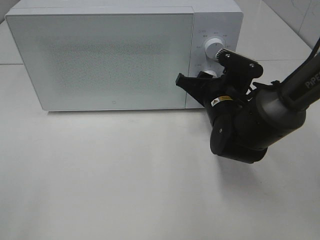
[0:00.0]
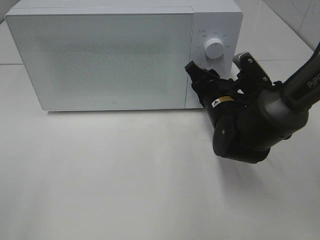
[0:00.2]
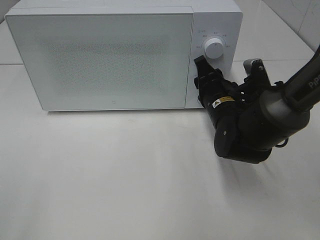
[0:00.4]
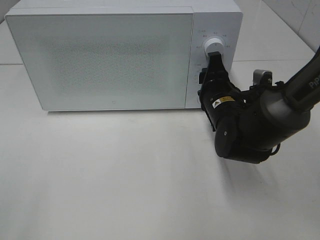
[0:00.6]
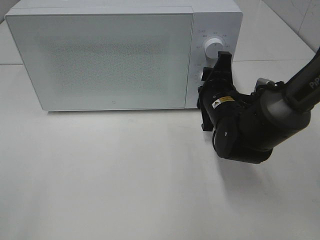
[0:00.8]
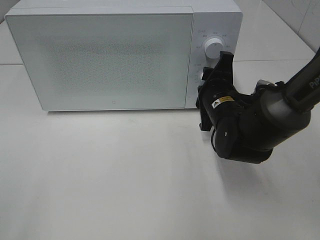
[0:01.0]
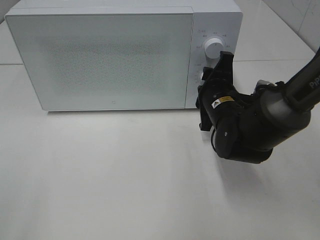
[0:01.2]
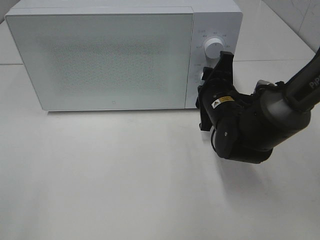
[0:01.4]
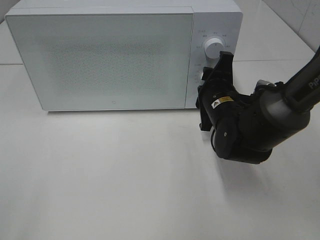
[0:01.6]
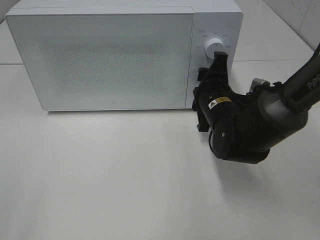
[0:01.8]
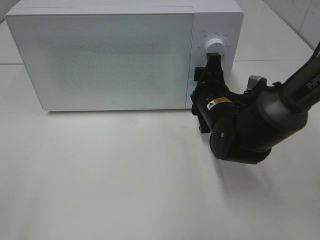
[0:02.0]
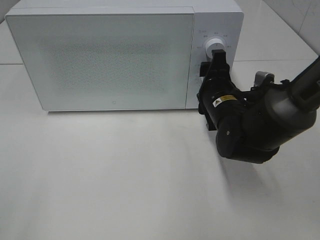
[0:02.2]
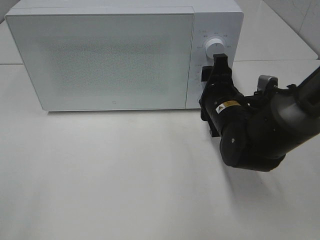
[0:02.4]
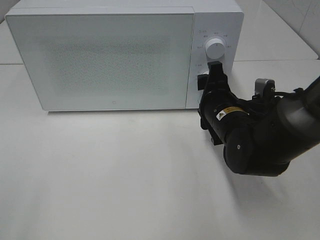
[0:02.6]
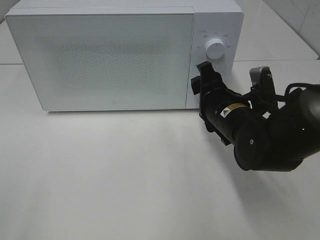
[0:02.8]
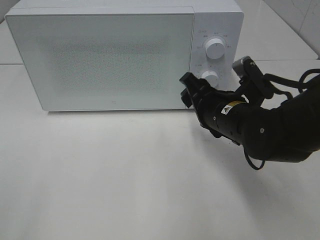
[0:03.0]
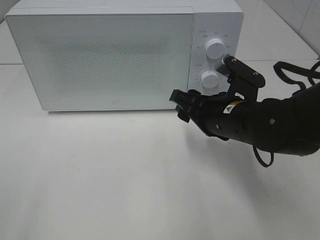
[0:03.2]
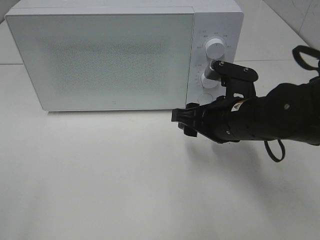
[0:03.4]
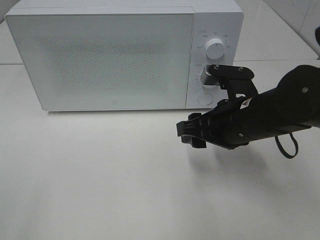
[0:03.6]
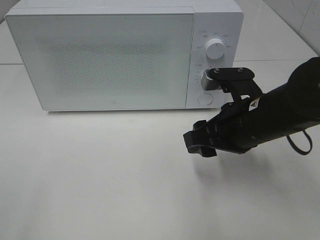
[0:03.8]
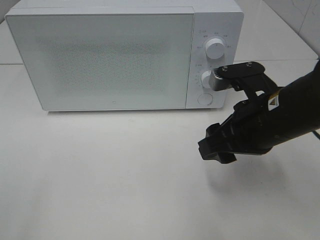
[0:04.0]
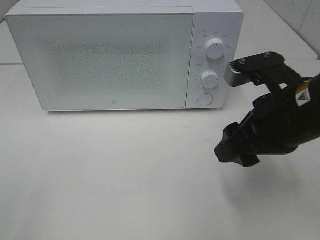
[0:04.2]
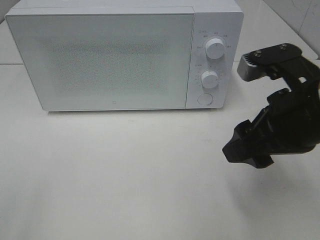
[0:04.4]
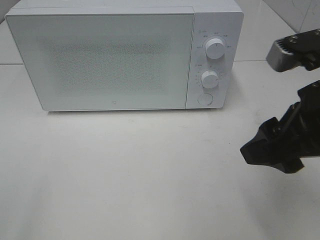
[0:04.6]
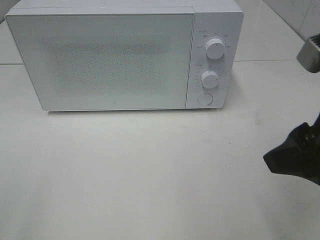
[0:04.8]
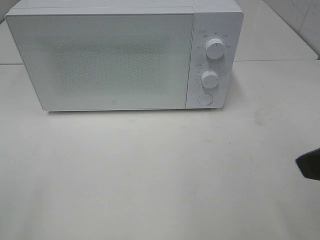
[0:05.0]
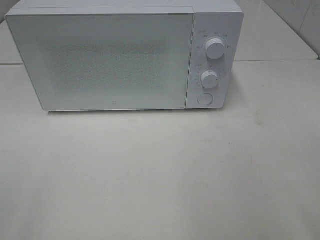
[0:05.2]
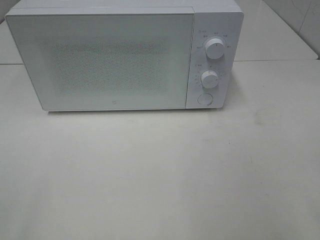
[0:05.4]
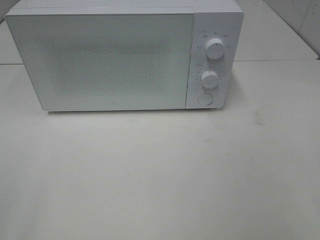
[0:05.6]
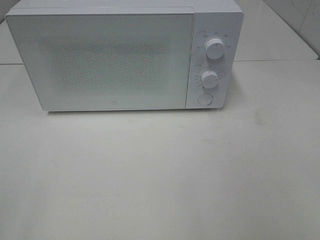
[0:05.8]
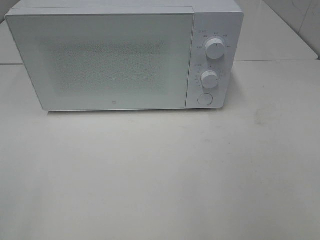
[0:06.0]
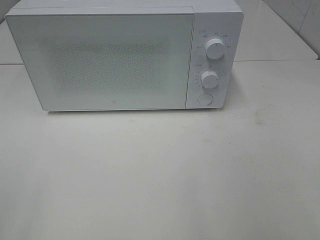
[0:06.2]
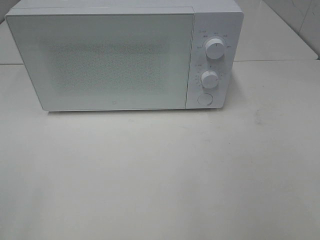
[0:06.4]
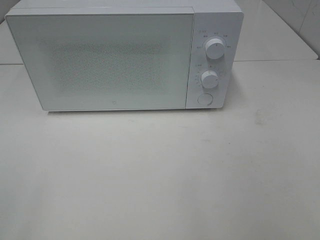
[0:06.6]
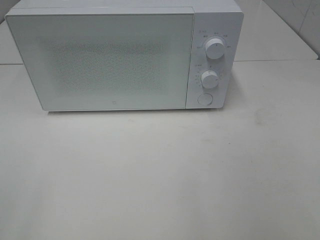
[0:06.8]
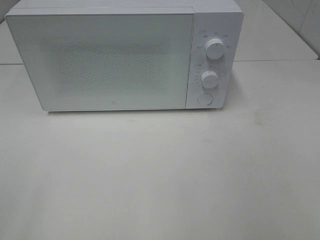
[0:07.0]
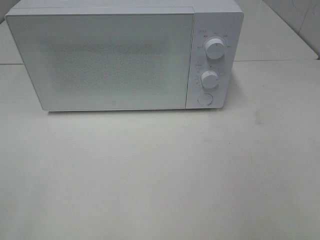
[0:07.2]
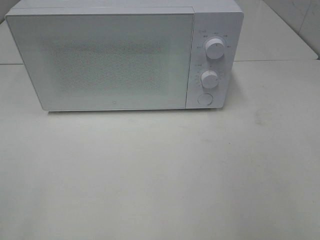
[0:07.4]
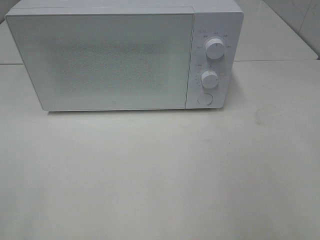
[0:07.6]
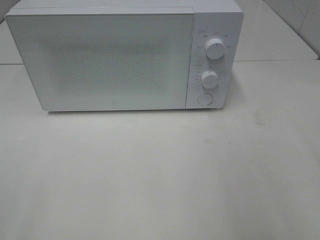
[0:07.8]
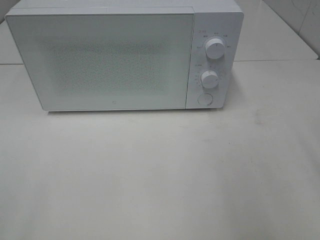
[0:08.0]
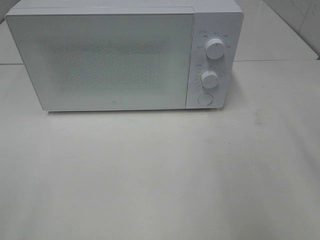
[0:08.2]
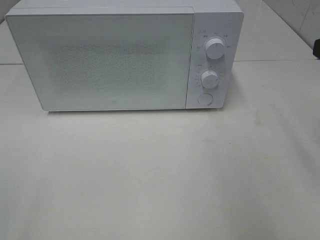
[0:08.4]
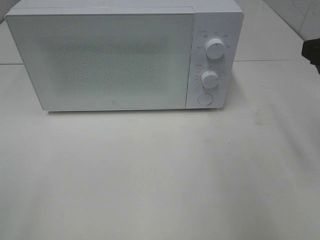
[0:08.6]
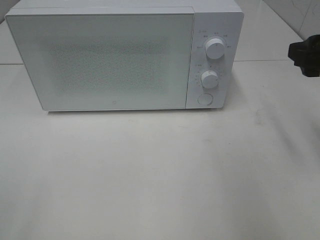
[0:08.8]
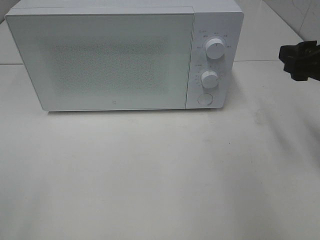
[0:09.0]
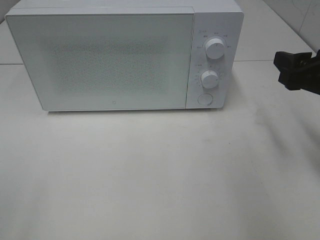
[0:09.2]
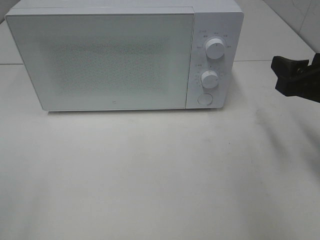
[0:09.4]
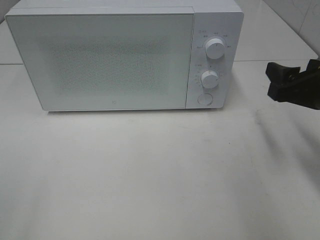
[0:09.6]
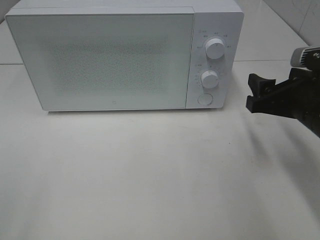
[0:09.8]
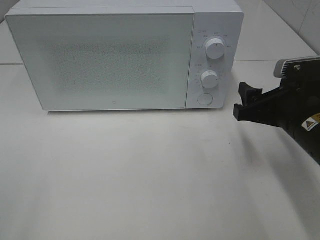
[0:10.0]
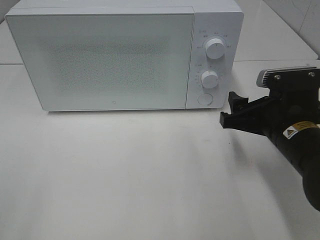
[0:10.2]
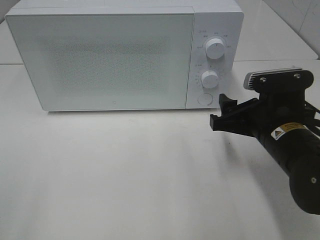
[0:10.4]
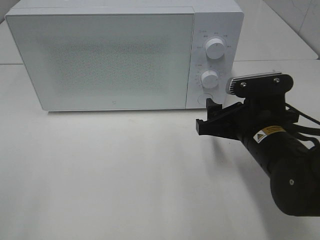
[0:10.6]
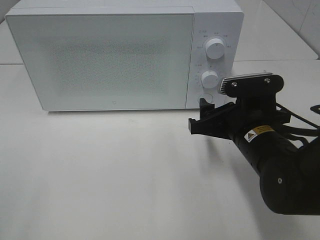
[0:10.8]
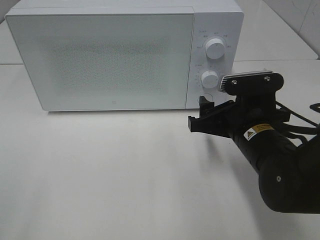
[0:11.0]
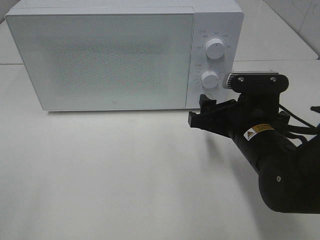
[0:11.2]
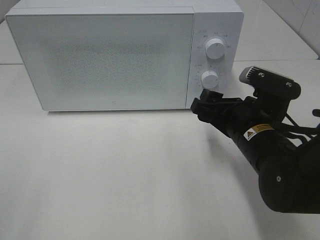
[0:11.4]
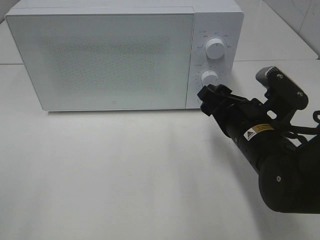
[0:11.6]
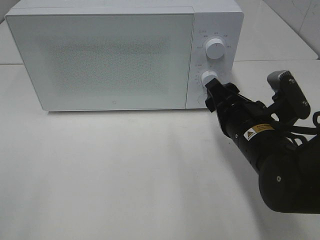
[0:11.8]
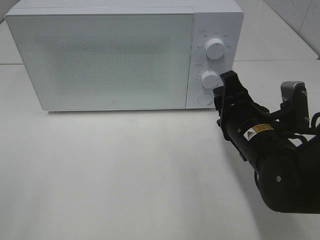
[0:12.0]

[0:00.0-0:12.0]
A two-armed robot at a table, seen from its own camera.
Task of the whole recording: Heat the burger.
0:01.6 to 0:03.0: The right gripper moves backward, roughly 5 cm.
0:03.0 to 0:04.4: The right gripper is displaced upward, backward and to the right by roughly 15 cm.
0:04.4 to 0:06.0: The right gripper is displaced backward and to the right by some 20 cm.
0:07.6 to 0:09.0: The right gripper goes some 15 cm forward and downward.
0:09.0 to 0:10.4: The right gripper goes roughly 15 cm downward and to the left.
0:10.4 to 0:12.0: The right gripper closes up.

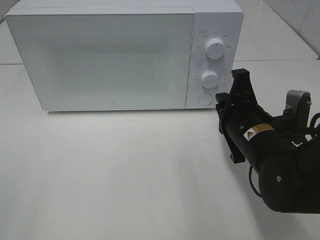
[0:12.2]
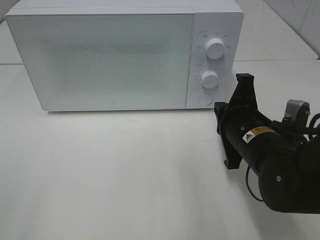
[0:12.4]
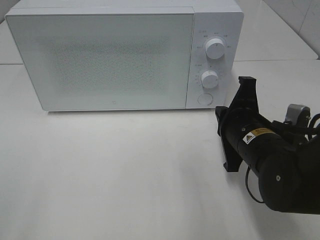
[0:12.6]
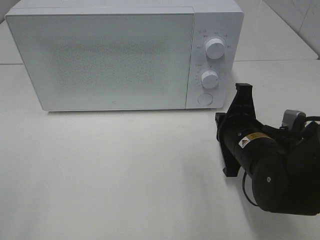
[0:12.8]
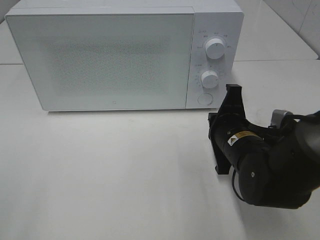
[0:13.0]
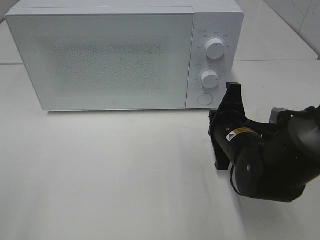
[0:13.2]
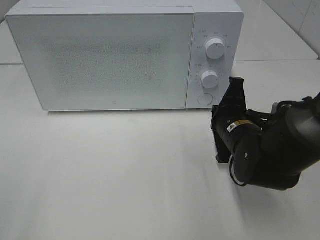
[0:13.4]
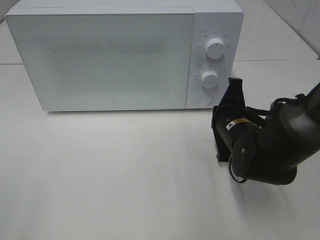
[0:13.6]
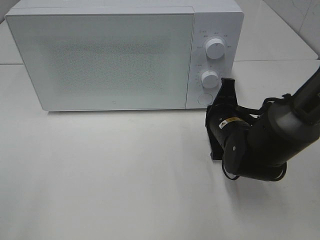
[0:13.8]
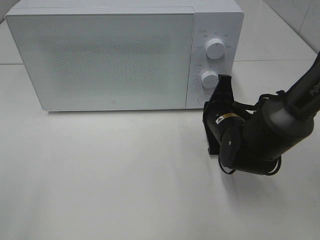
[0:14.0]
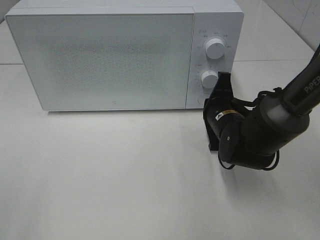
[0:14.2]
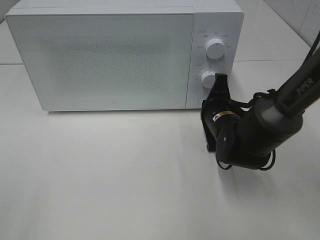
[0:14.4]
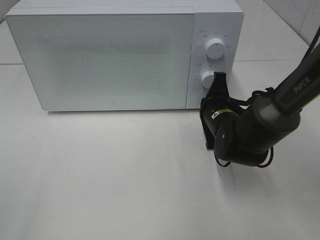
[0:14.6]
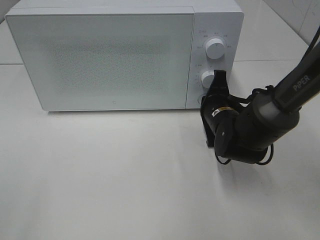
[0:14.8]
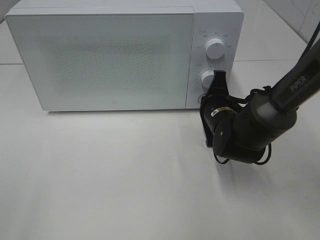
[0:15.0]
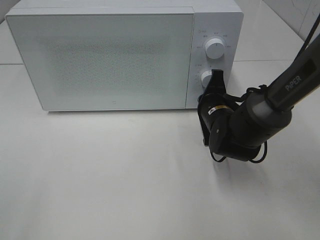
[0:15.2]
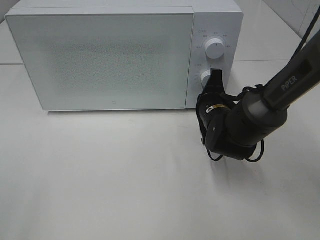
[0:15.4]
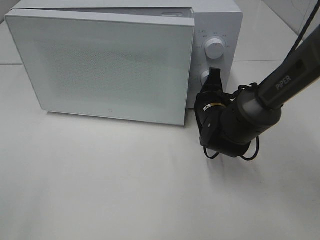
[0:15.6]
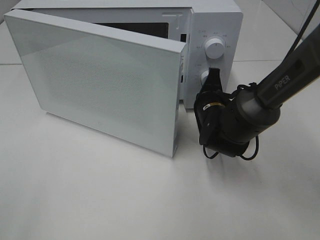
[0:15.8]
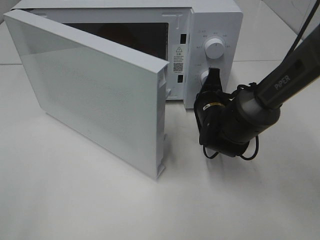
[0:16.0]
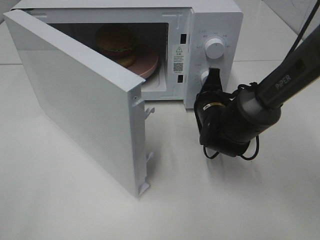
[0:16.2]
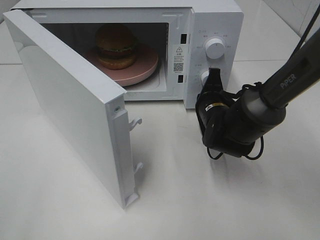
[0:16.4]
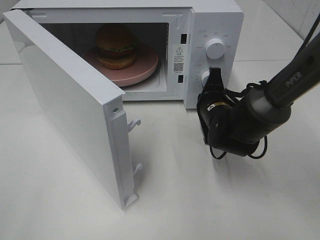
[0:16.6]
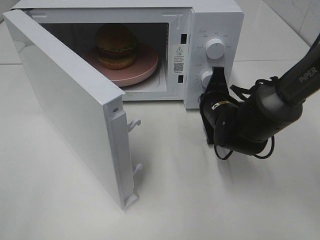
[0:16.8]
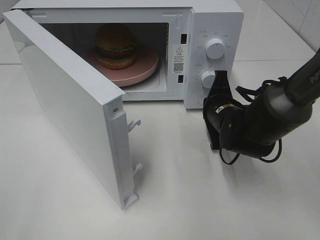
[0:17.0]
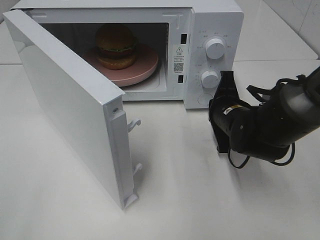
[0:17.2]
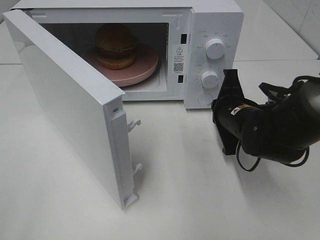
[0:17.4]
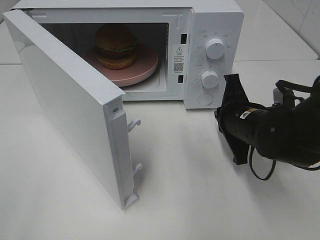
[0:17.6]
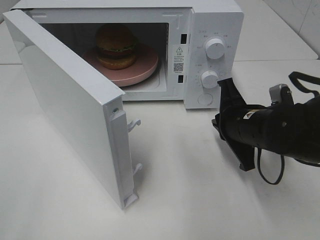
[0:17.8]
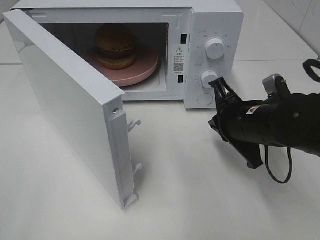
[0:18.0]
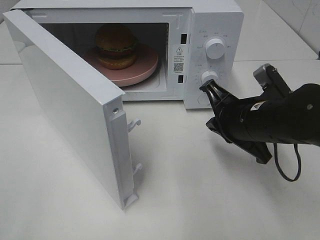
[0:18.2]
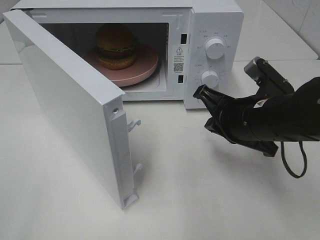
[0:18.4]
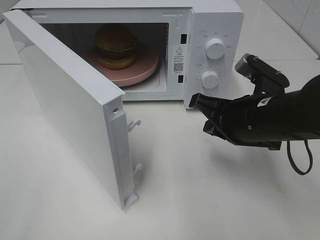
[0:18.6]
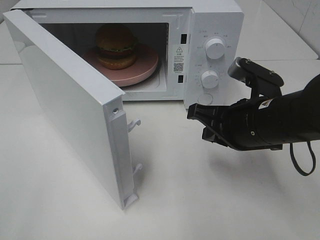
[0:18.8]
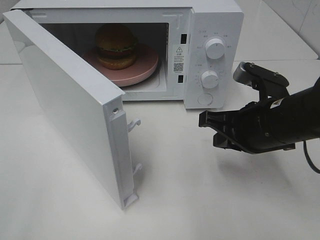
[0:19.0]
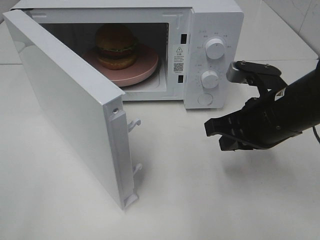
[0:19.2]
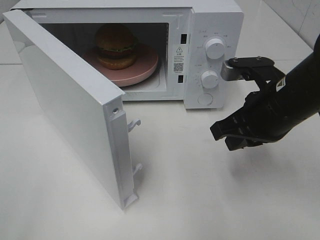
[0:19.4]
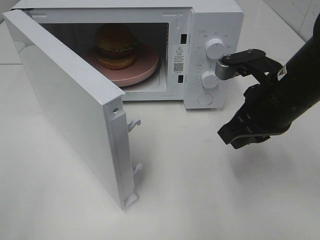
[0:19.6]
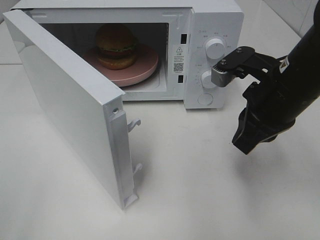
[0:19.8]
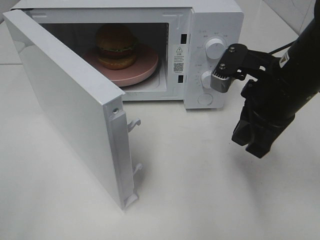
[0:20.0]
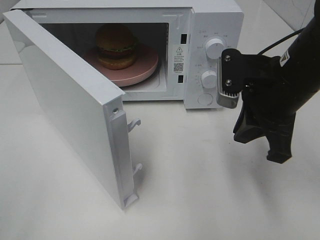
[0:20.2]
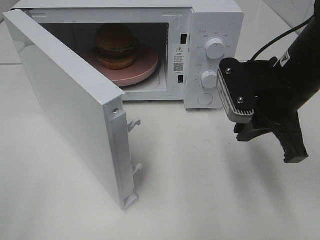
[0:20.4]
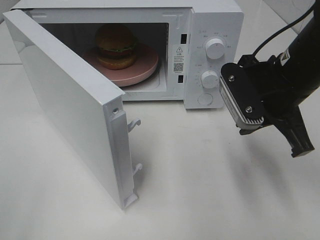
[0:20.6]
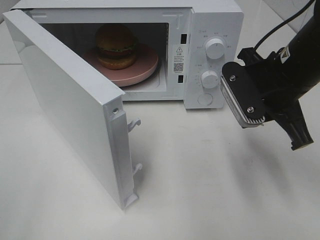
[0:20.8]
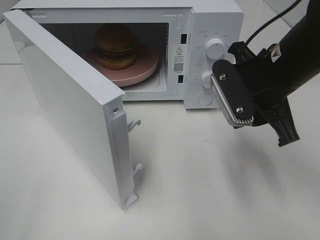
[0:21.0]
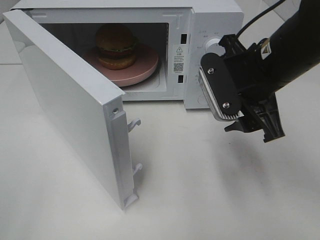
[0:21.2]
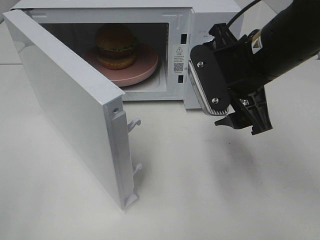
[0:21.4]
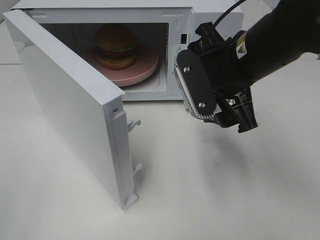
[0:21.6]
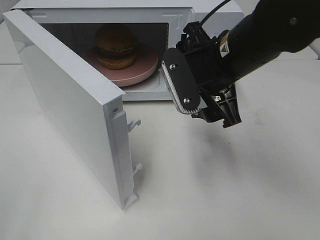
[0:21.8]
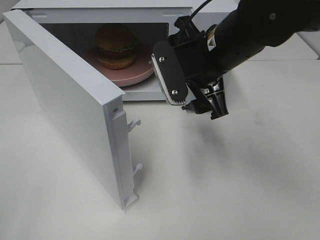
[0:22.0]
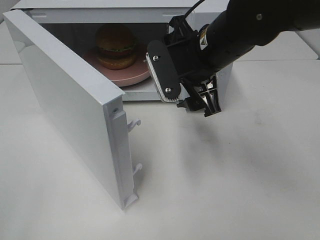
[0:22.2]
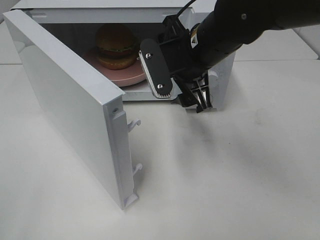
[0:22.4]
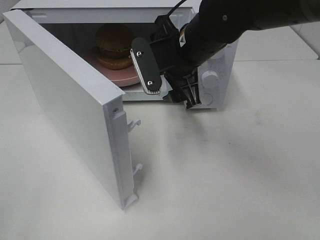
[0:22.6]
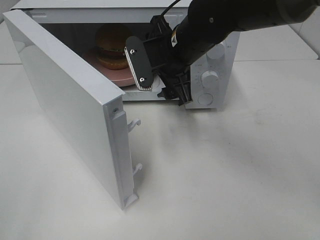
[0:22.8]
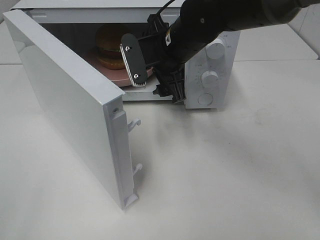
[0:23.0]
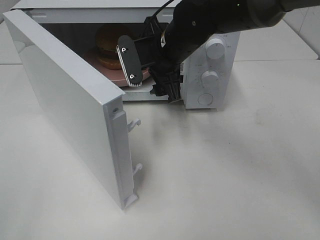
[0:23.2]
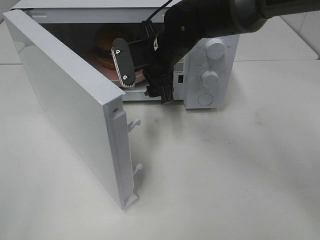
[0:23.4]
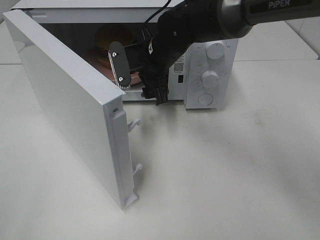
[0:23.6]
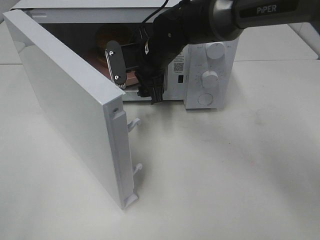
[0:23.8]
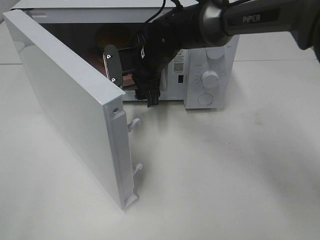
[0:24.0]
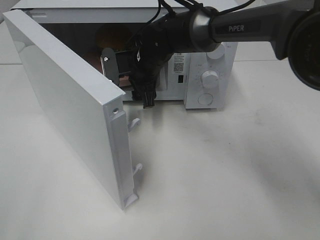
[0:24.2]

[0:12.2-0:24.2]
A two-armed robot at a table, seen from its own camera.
Task of the whole recording: Heat the burger.
Step, 0:12.2 to 0:17.0: Right hand: press the switch.
0:12.2 to 0:13.8: The right gripper shifts roughly 5 cm forward.
0:13.8 to 0:15.2: The grippers stay close to where they were, moving slightly.
0:16.6 to 0:18.2: The right gripper goes approximately 10 cm backward and upward.
0:18.2 to 0:19.8: The right gripper travels upward by some 5 cm.
0:19.8 to 0:21.2: The right gripper opens.
0:21.2 to 0:22.6: The right gripper moves to the left and forward, roughly 10 cm.
0:22.6 to 0:24.2: The right gripper heads forward, downward and to the left, covering roughly 15 cm.
